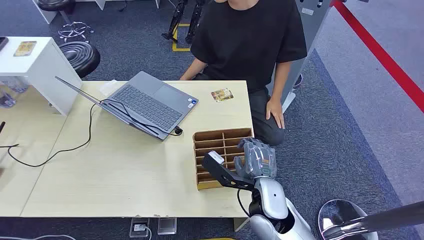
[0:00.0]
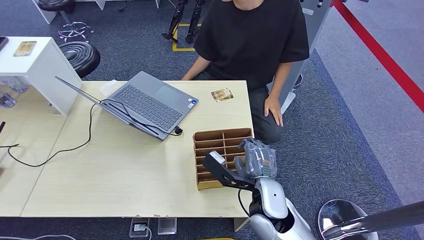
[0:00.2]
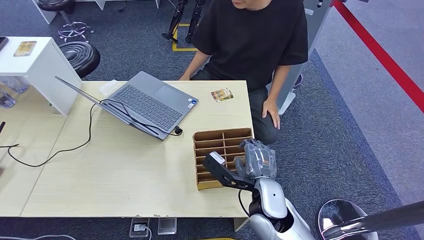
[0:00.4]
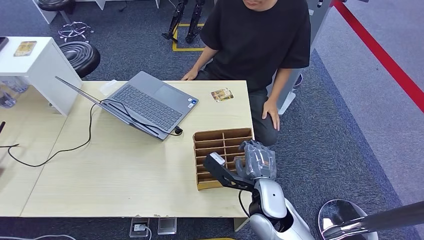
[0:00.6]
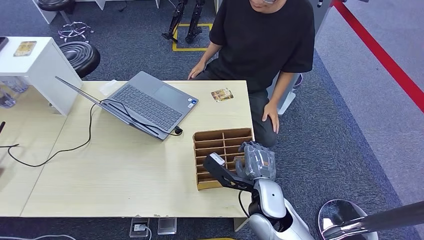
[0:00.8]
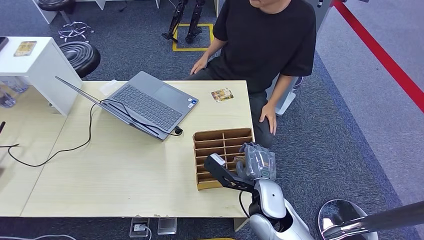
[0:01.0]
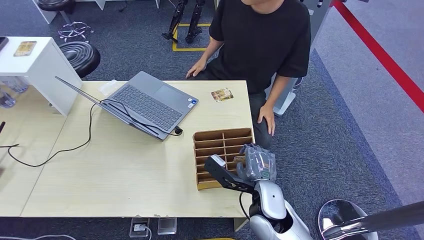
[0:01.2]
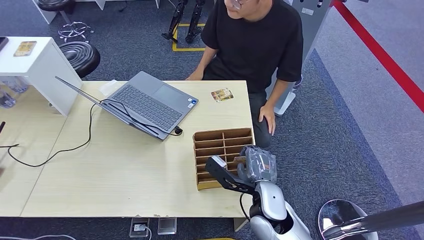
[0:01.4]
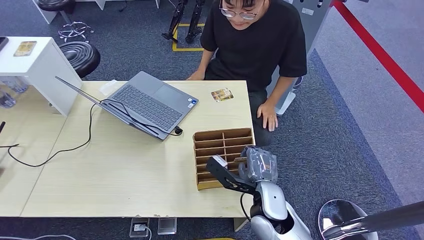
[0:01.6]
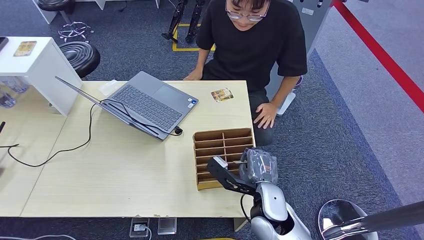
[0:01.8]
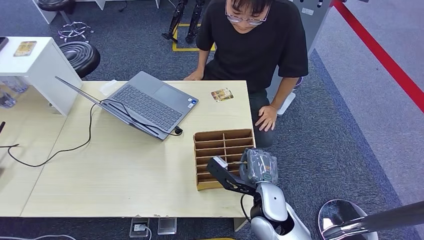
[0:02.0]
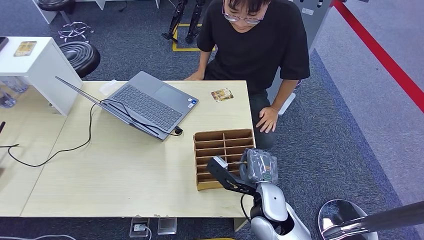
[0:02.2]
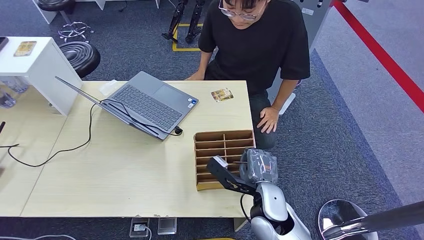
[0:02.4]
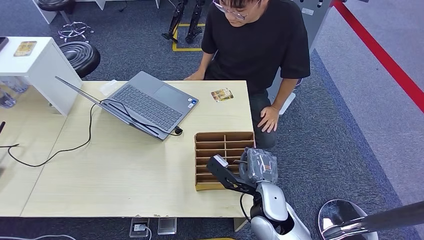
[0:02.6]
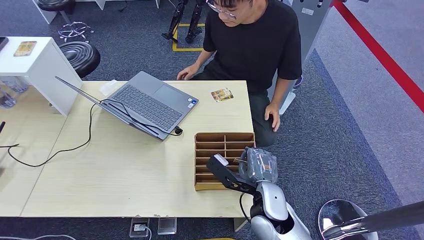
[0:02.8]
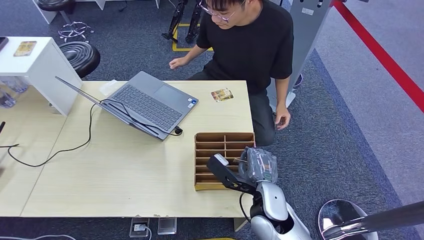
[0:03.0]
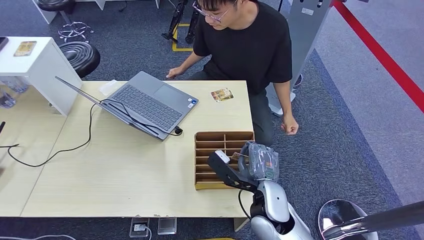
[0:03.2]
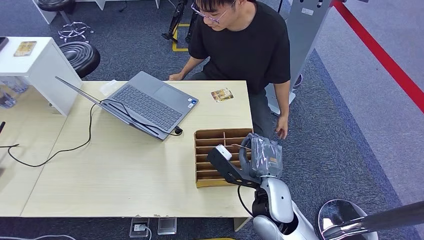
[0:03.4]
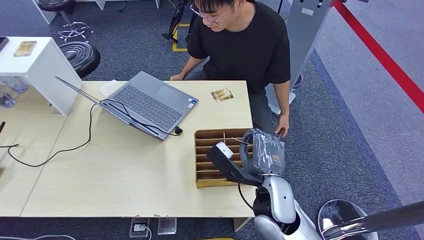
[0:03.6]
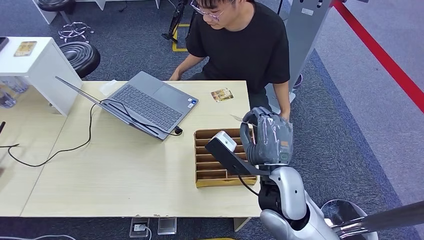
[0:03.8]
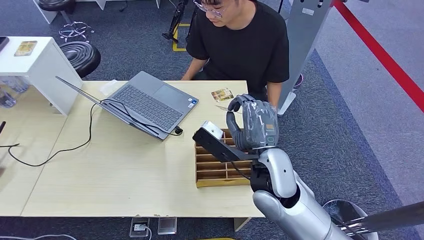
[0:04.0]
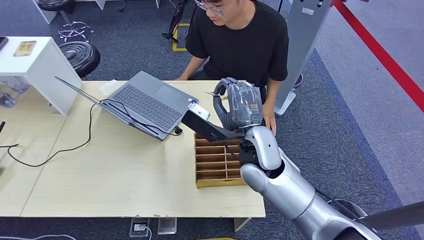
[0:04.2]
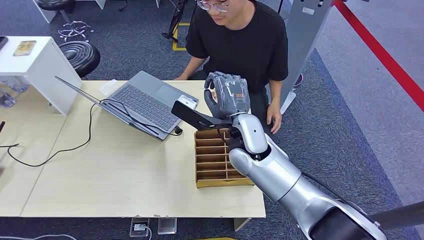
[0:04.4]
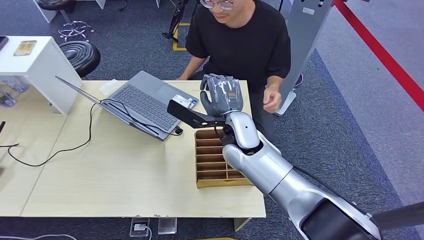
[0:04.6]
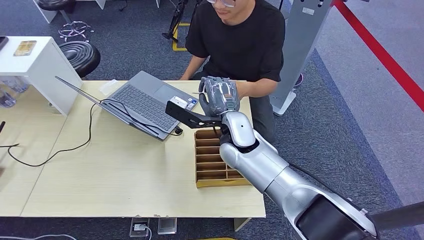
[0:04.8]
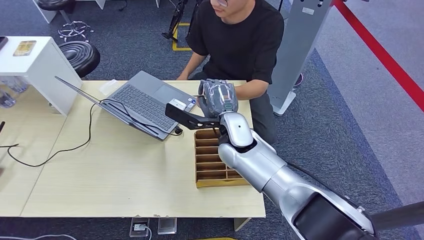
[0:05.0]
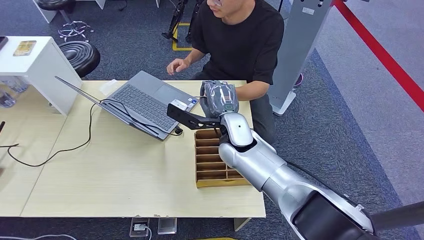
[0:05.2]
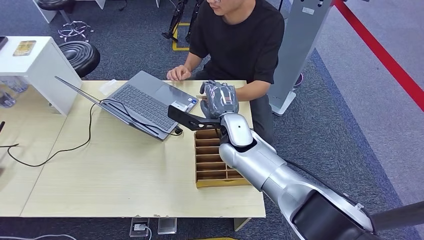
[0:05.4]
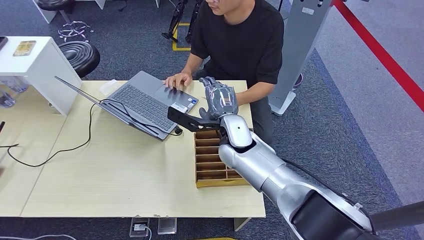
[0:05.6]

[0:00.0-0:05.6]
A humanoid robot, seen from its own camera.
Step, 0:00.0 to 0:03.2: Pick up the key card from the card box.
Step, 0:03.8 to 0:05.6: Hand the key card to the target.
0:01.4 to 0:02.8: Both hands stay put.
0:02.8 to 0:04.2: The right hand moves upward and forward, approximately 15 cm.
0:04.2 to 0:05.6: The right hand travels forward by about 5 cm.
